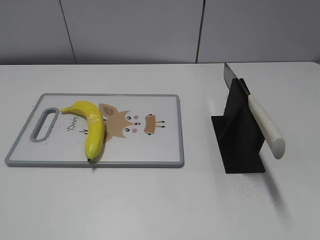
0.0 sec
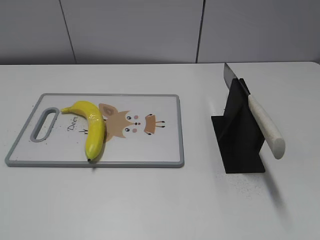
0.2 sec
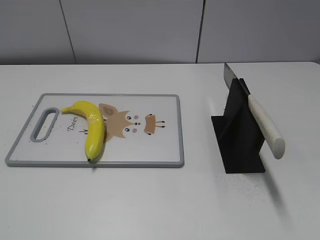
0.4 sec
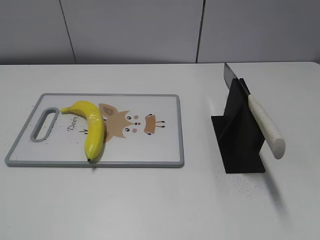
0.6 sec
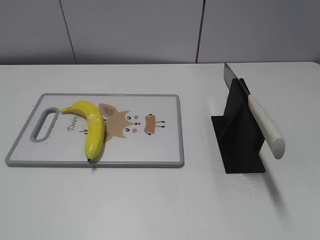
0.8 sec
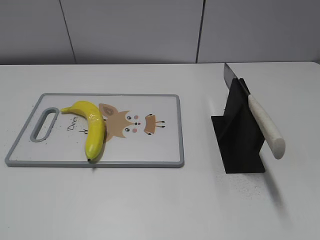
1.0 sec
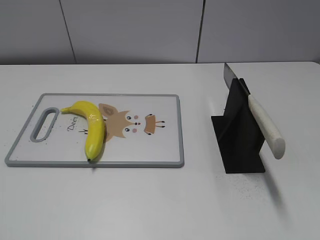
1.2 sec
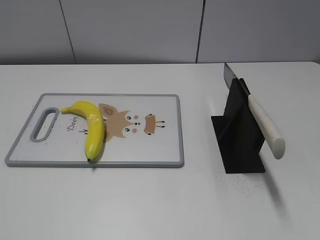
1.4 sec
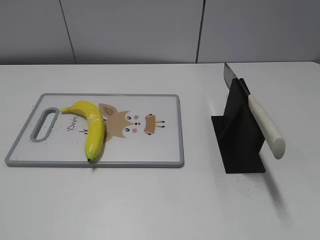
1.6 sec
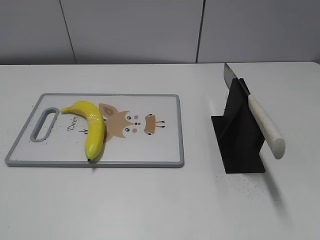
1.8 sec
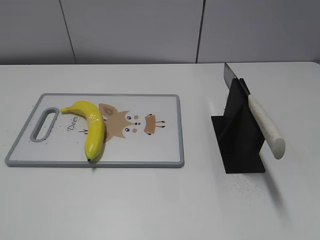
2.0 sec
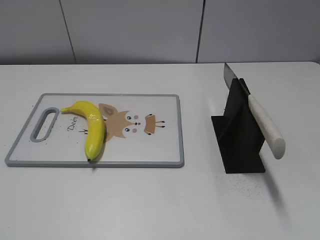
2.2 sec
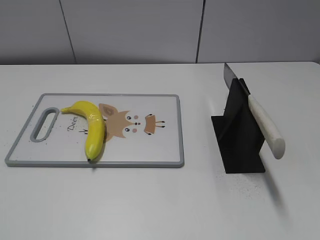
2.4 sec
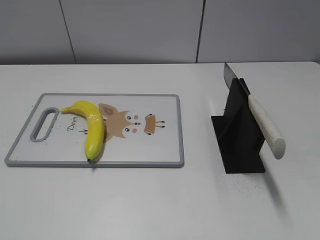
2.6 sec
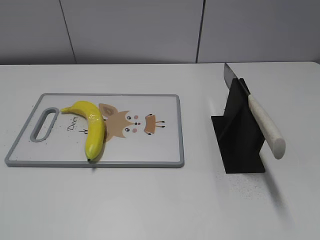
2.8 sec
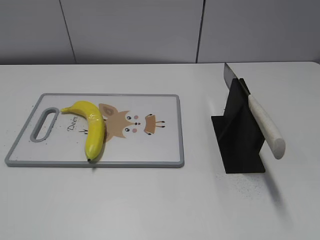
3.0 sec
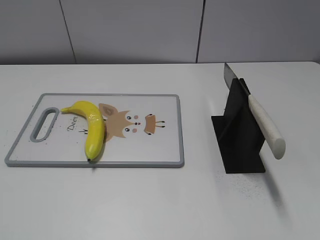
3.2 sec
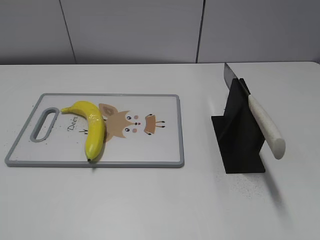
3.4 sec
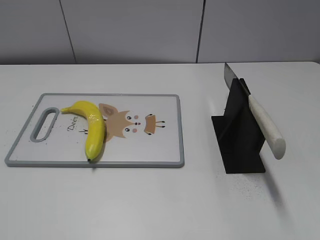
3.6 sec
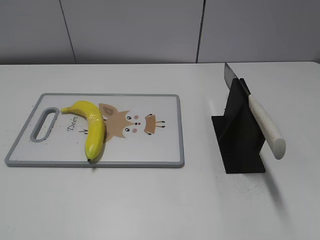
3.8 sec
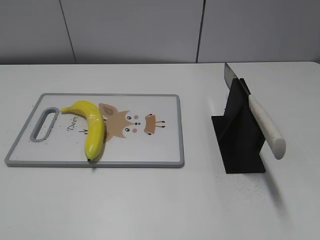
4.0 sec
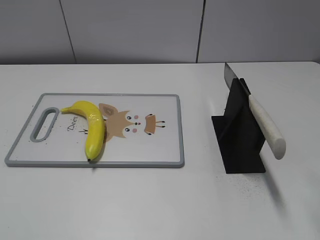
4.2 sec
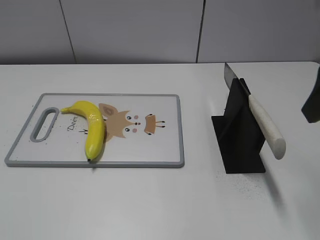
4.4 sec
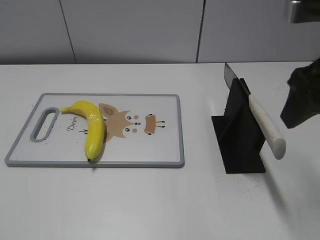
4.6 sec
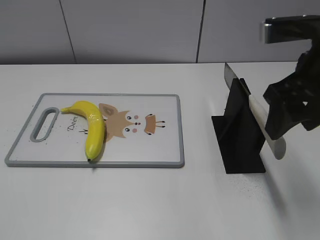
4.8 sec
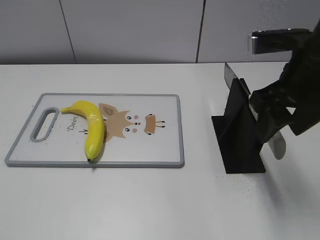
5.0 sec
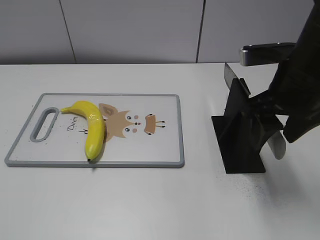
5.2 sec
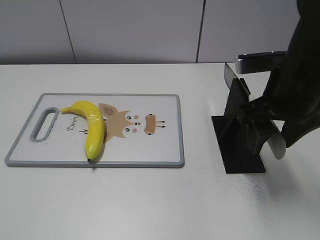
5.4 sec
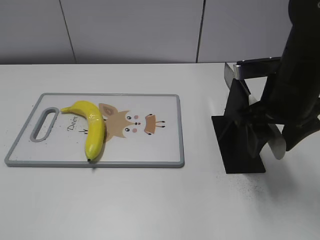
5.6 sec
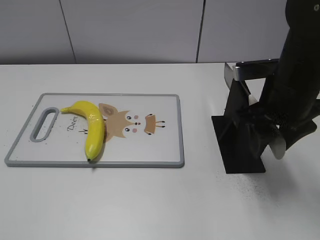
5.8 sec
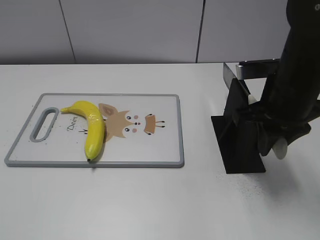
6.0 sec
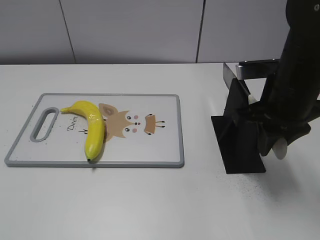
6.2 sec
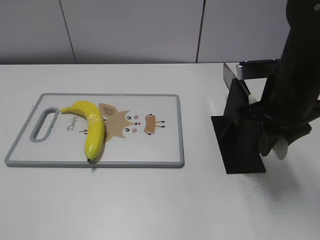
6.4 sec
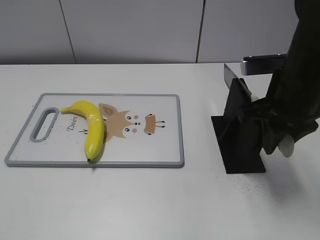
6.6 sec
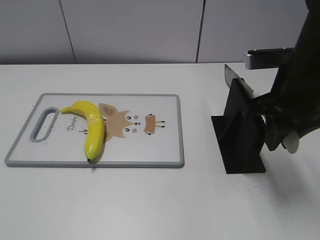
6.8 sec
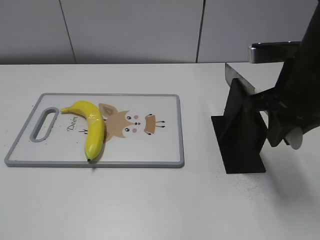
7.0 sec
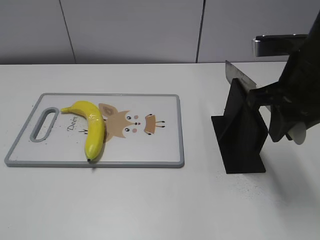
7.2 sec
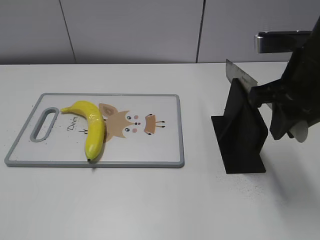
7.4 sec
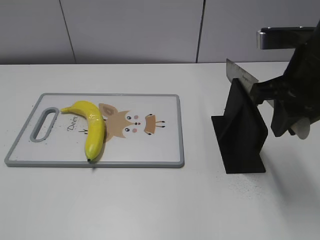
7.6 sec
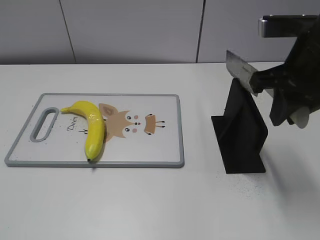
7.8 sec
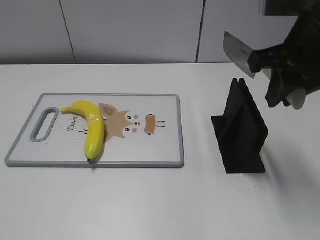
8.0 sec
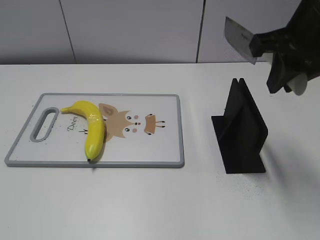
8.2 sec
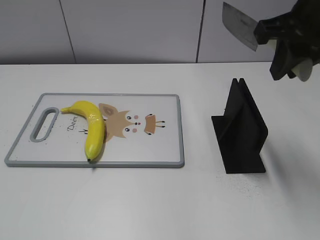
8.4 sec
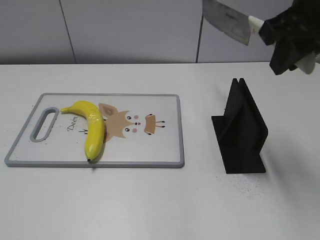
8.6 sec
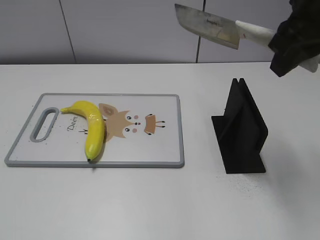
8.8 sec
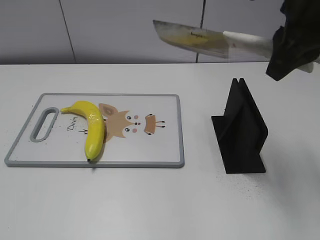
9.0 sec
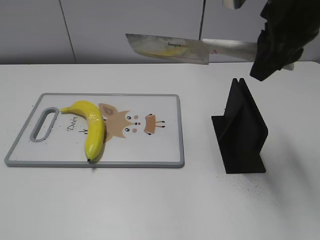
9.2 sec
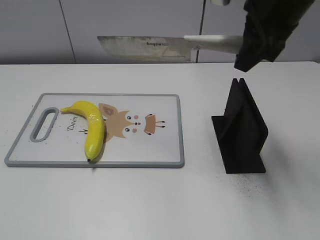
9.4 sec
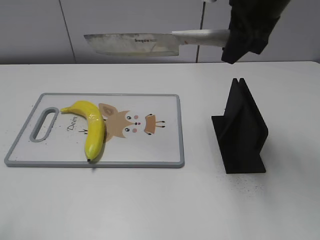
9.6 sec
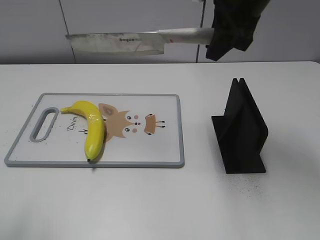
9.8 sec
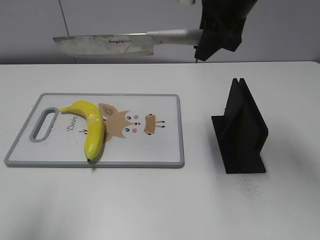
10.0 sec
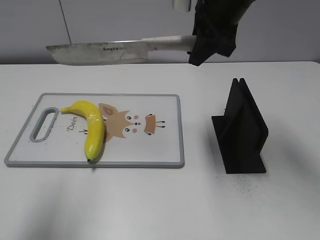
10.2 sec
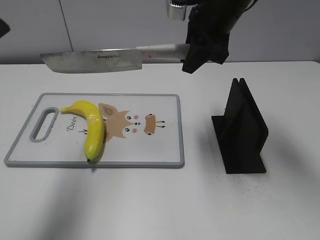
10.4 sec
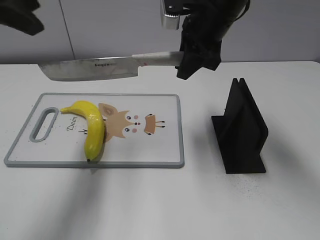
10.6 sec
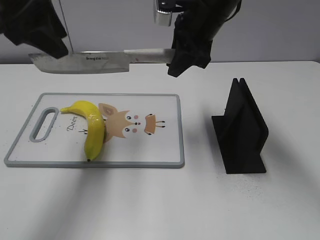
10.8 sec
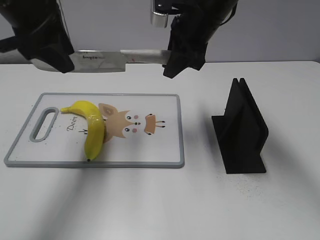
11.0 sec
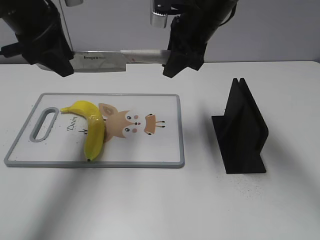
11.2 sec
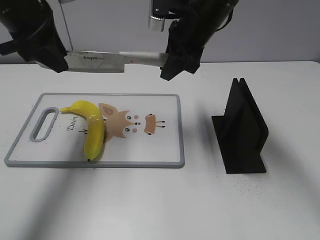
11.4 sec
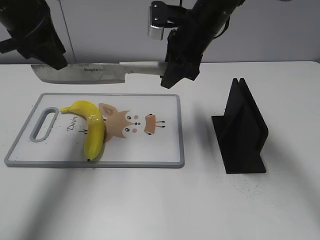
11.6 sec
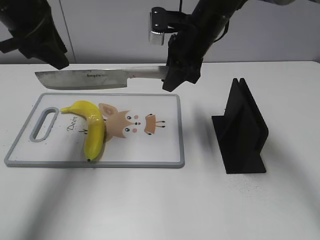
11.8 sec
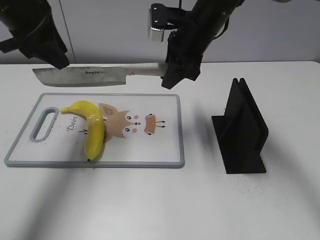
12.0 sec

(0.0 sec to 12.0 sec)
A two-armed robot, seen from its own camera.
Task of the whole recording: cut plastic banana.
Step, 0.0 sec - 7.6 sec: Grab the knife handle with your right hand.
3.0 sec - 4.4 sec: The right gripper travels forward by some 20 cm.
4.4 sec - 6.0 sec: The right gripper goes approximately 15 cm downward, forward and to the left, and closes.
6.0 sec - 7.6 sec: The right gripper is displaced upward by roughly 5 cm.
7.6 sec - 9.0 sec: The right gripper shifts roughly 5 cm upward.
9.0 sec - 10.4 sec: The left gripper moves forward and upward, roughly 25 cm; the right gripper travels forward, to the left and downward by some 15 cm.
10.4 sec - 12.0 sec: The right gripper travels downward by about 5 cm, while the left gripper is displaced forward and downward by roughly 15 cm.

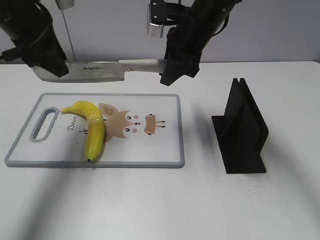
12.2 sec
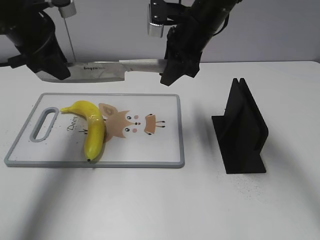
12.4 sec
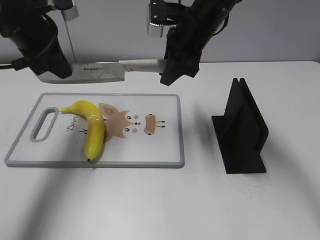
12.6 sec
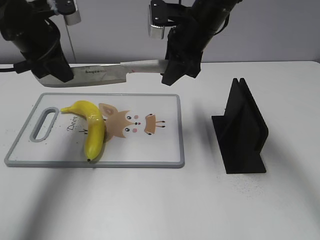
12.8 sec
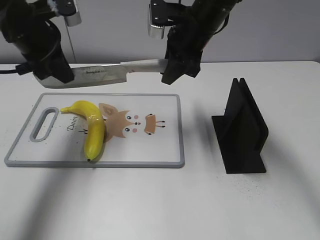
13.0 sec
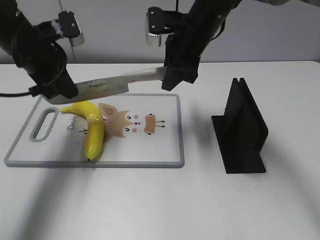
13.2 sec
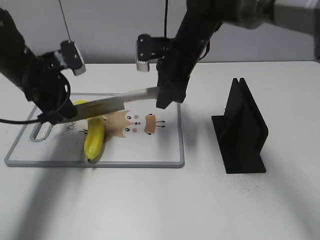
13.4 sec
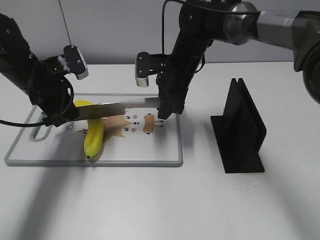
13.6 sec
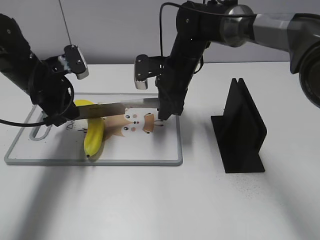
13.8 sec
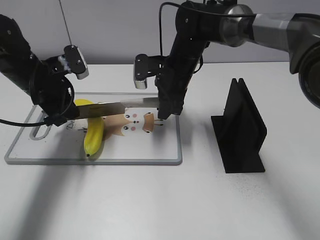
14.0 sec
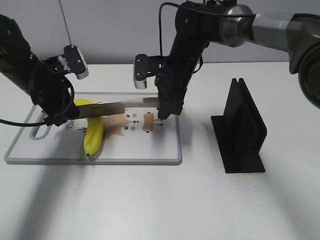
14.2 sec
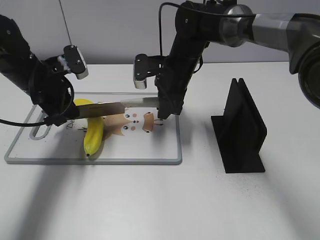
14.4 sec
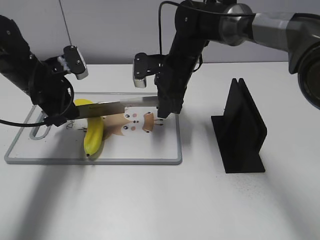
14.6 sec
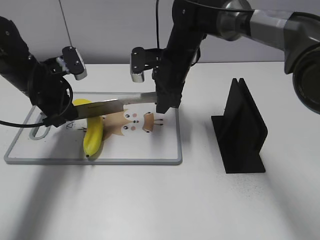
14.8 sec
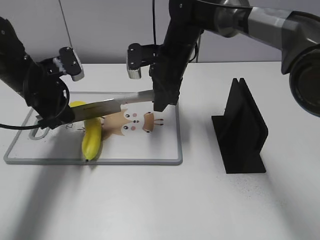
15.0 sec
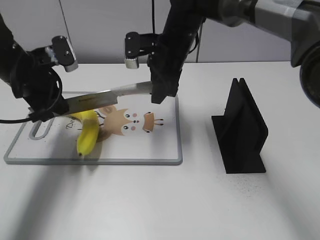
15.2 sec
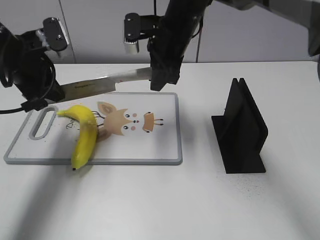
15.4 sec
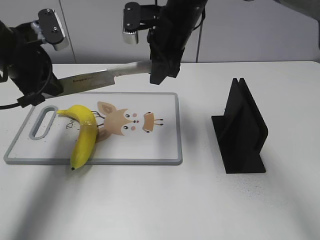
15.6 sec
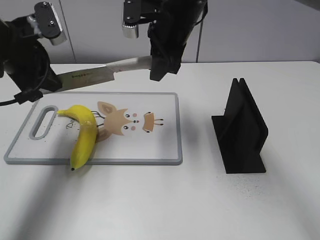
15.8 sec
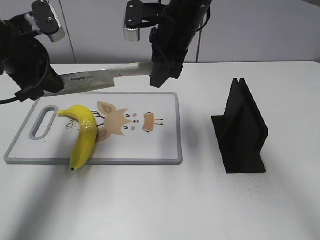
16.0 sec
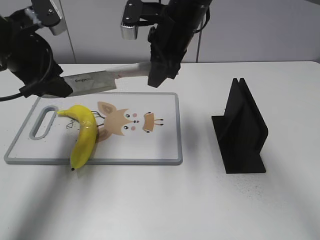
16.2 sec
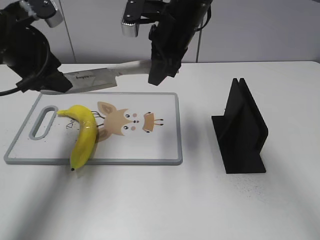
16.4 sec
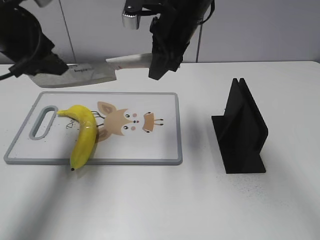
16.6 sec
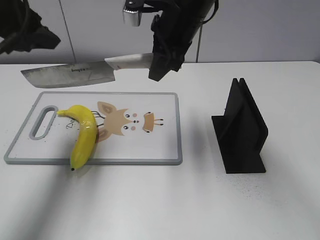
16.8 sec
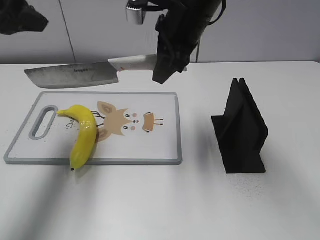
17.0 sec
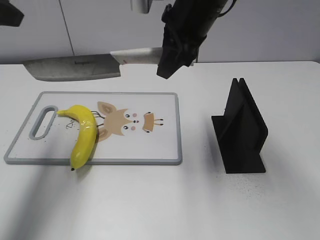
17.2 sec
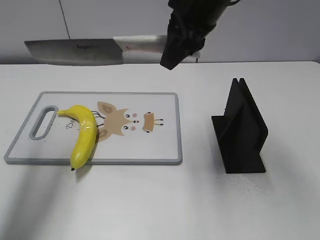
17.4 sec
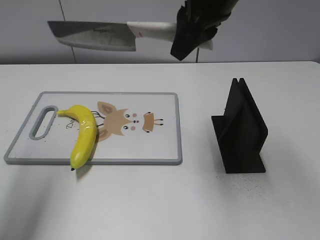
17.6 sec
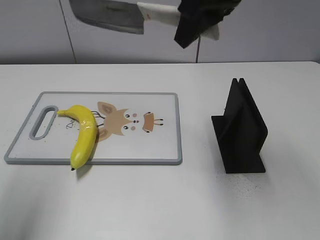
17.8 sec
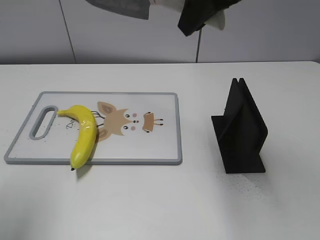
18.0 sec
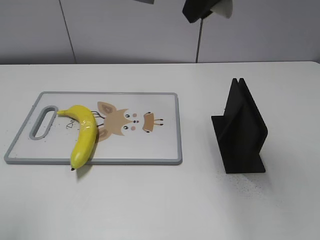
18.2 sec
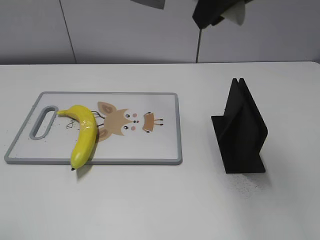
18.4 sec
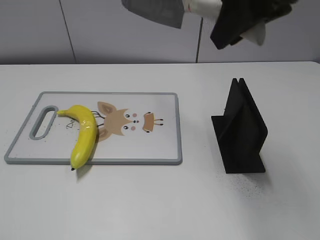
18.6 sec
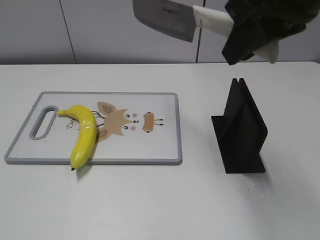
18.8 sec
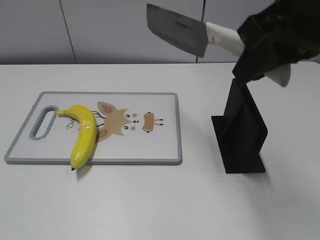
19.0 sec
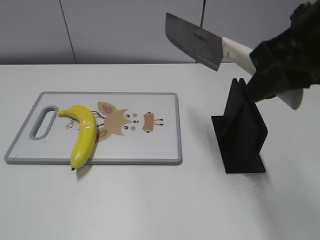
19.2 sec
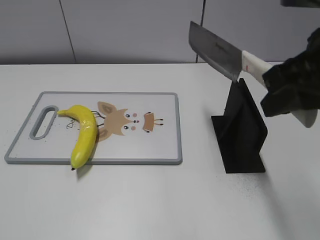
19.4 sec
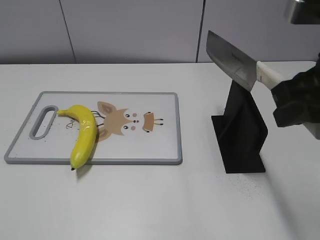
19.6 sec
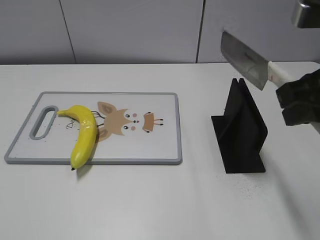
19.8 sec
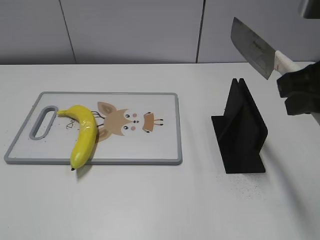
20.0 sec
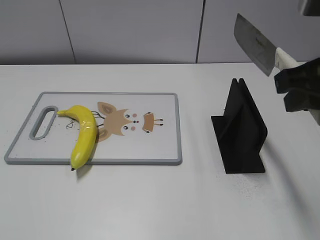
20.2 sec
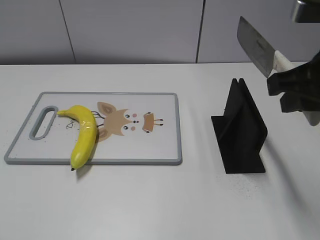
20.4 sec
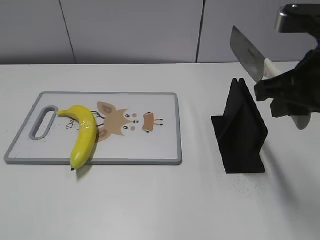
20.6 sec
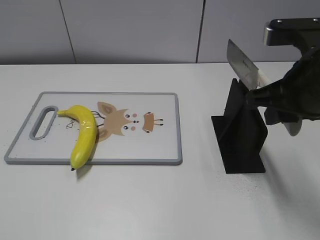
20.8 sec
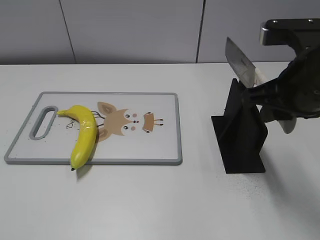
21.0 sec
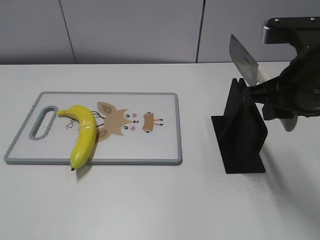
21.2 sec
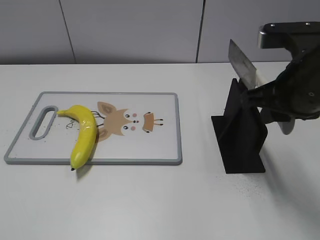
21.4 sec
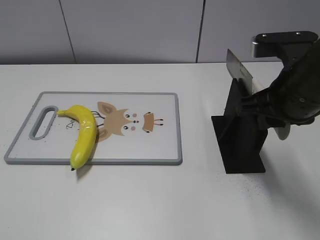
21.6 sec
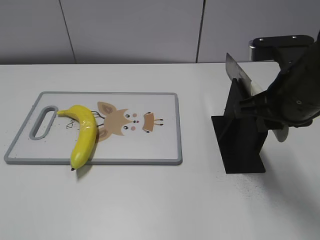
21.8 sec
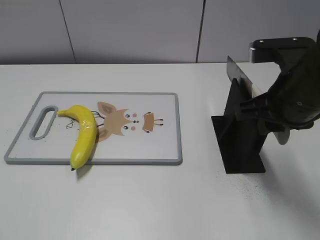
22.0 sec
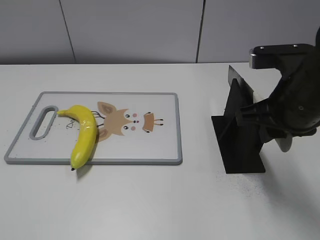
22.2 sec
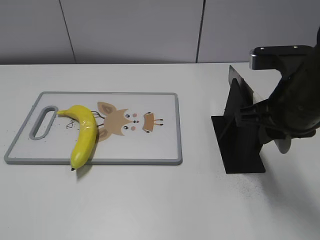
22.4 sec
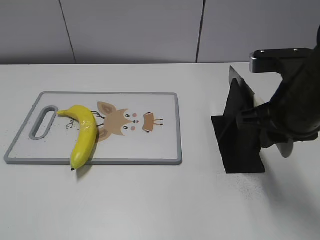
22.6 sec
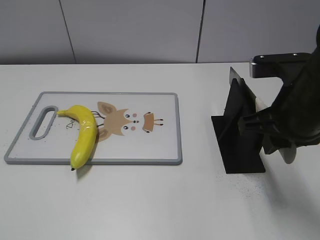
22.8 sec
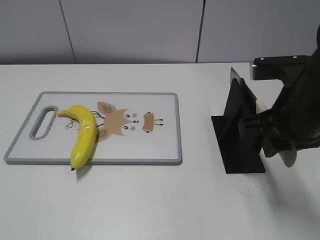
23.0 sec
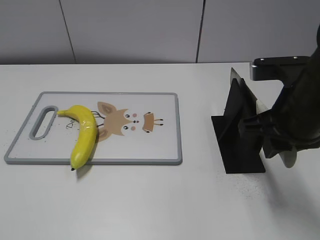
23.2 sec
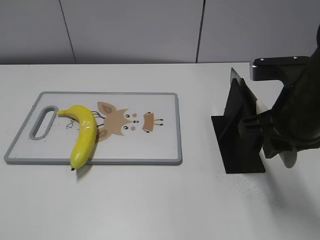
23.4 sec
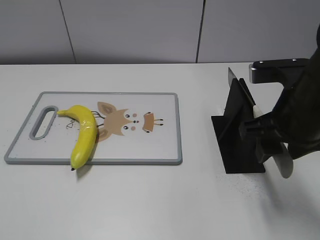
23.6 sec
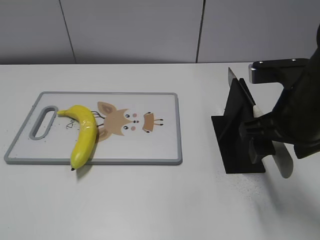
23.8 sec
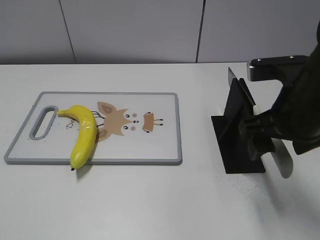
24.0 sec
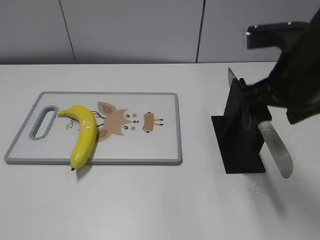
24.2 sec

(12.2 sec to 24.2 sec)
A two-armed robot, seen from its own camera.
Task of the whole recording: cut plastic banana.
Step, 12.2 sec - 15.8 sec: Lift the knife with your right hand.
Step, 16.0 sec - 18.6 sec: Cut the banana with your right hand.
12.2 sec - 13.8 sec: Both grippers move downward, roughly 10 cm. The left gripper closes its fingers.
13.8 sec - 15.2 sec: The right gripper shifts approximately 5 cm upward.
15.2 sec - 16.6 sec: Both grippers move upward, approximately 10 cm. The left gripper opens.
16.6 sec - 18.2 sec: The right gripper moves upward, backward and to the right, approximately 20 cm; the left gripper goes some 20 cm backward, upward and to the left.
18.2 sec - 19.8 sec: The left gripper is displaced backward and downward by about 15 cm. Meanwhile the right gripper shifts some 15 cm backward, to the right and downward.
19.8 sec - 21.2 sec: The right gripper ends up approximately 5 cm from where it was.
21.2 sec - 22.6 sec: The grippers stay close to where they were, moving slightly.
22.6 sec - 24.2 sec: The right gripper opens up.
